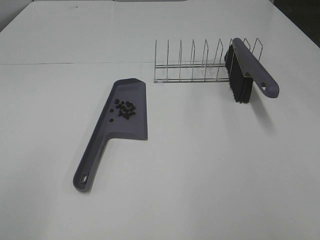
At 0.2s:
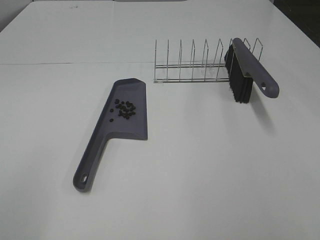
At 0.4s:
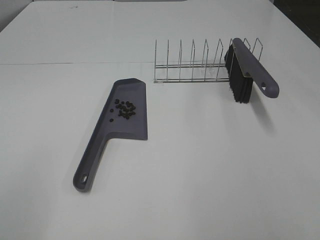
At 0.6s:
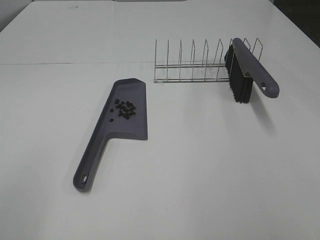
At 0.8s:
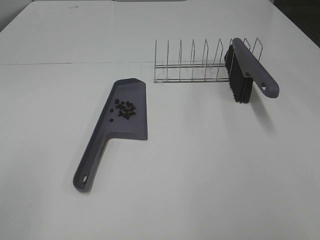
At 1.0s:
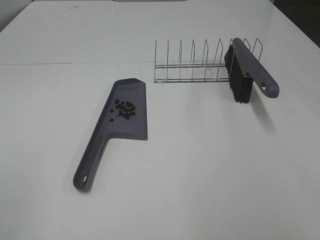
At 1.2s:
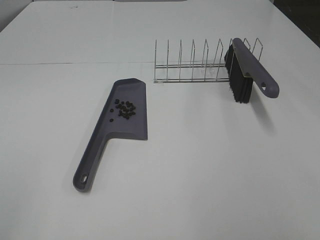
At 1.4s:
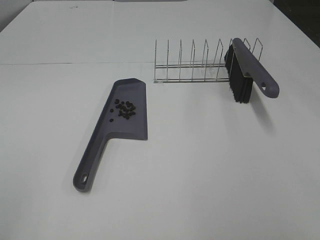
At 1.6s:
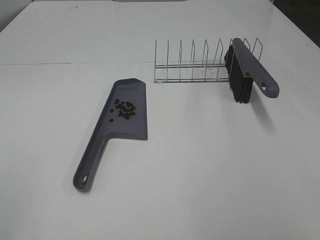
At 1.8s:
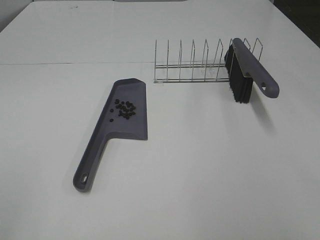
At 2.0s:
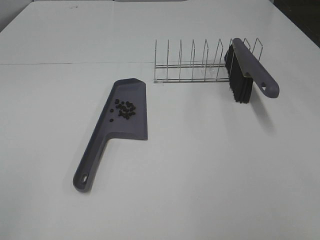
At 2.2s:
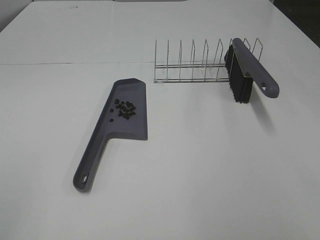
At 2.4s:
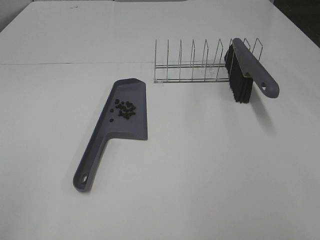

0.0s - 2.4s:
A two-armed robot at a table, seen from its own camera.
Task of the whole recording: Sweep Coffee Bean.
1.2s - 2.4s: The two grippers keep their place.

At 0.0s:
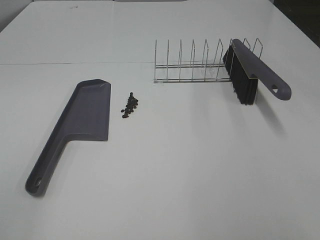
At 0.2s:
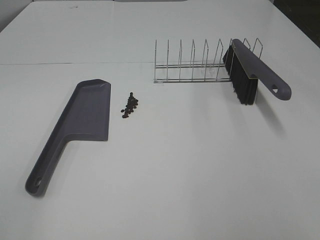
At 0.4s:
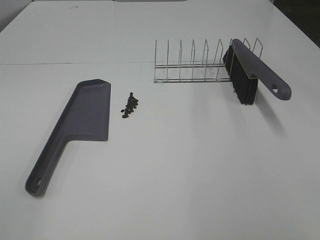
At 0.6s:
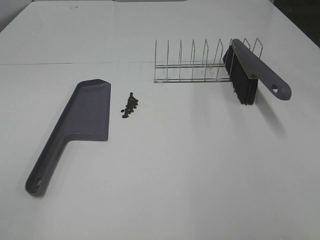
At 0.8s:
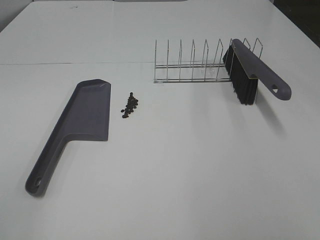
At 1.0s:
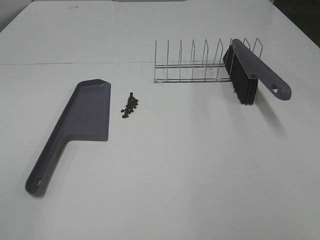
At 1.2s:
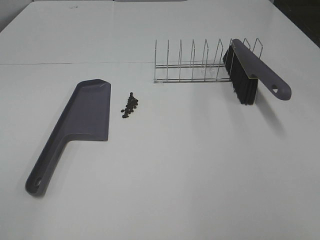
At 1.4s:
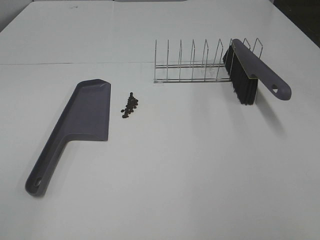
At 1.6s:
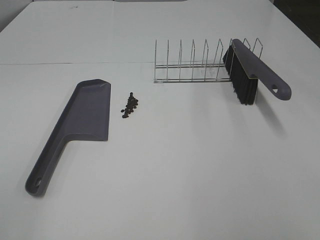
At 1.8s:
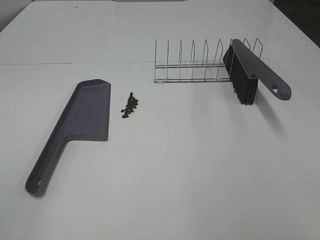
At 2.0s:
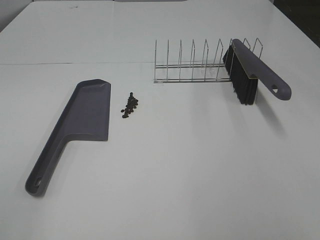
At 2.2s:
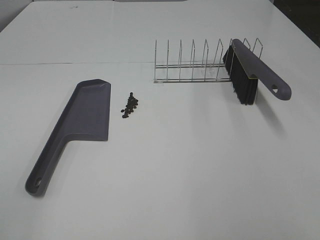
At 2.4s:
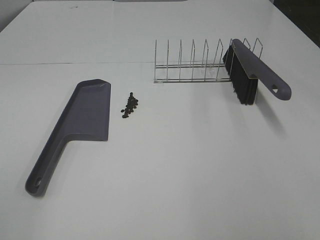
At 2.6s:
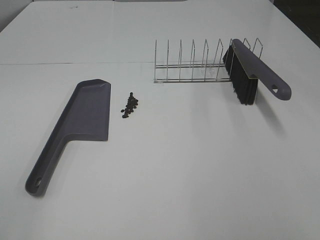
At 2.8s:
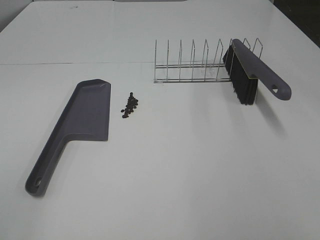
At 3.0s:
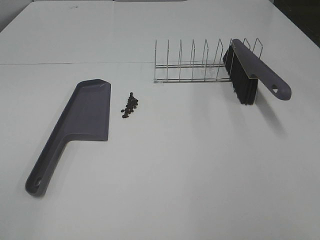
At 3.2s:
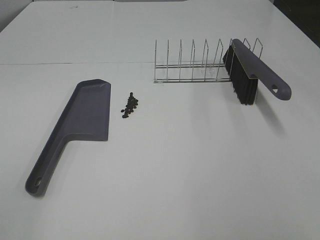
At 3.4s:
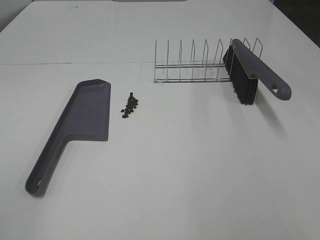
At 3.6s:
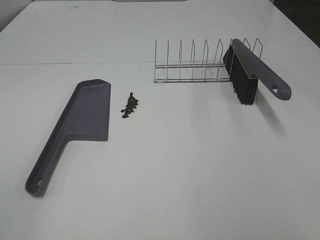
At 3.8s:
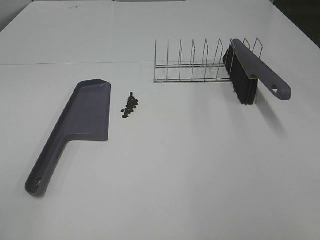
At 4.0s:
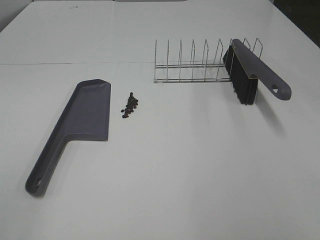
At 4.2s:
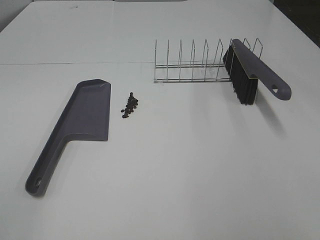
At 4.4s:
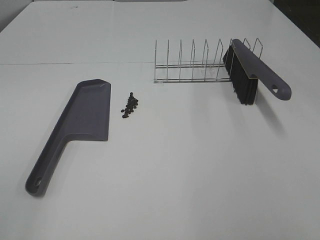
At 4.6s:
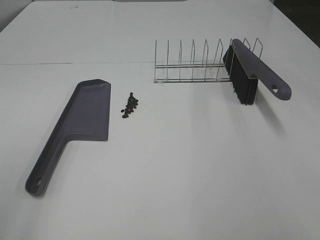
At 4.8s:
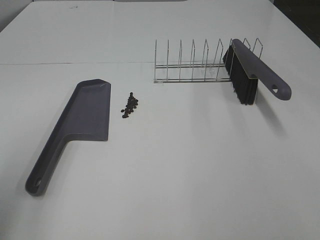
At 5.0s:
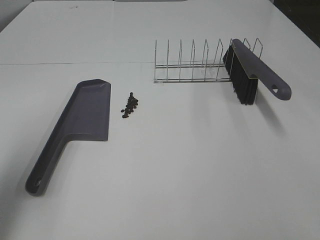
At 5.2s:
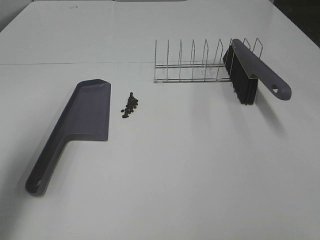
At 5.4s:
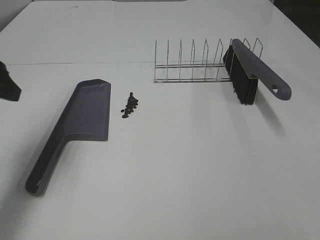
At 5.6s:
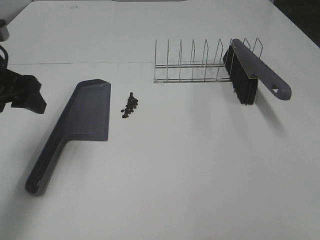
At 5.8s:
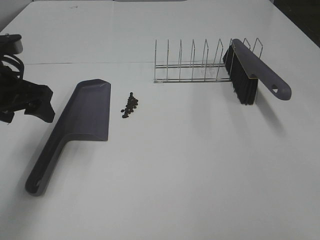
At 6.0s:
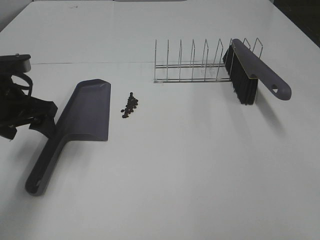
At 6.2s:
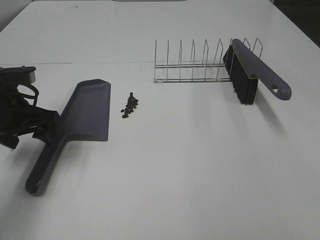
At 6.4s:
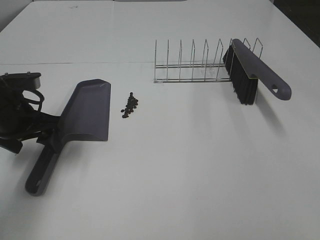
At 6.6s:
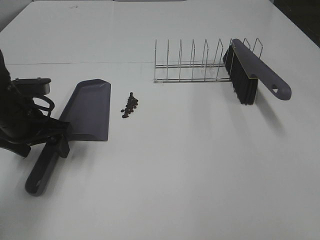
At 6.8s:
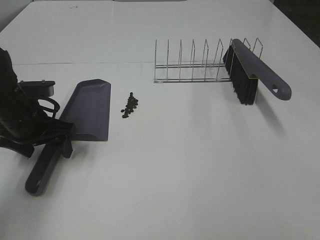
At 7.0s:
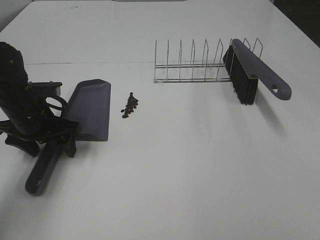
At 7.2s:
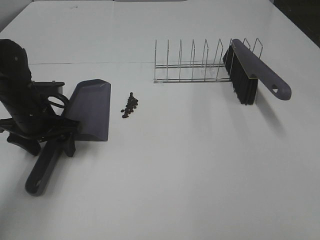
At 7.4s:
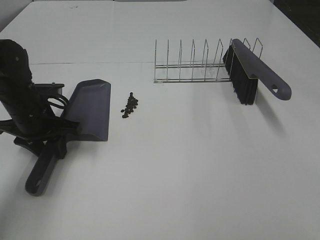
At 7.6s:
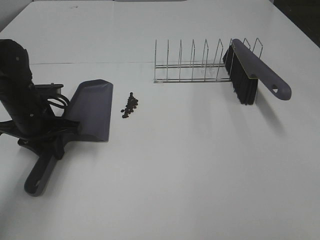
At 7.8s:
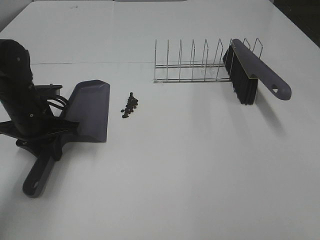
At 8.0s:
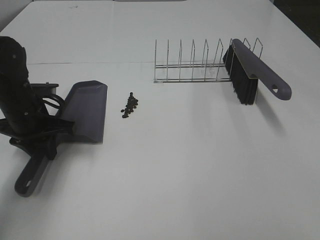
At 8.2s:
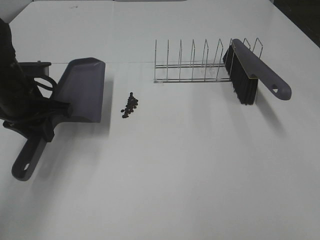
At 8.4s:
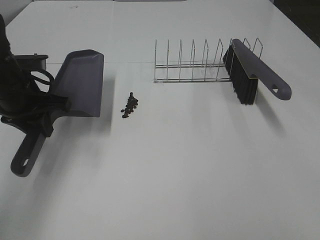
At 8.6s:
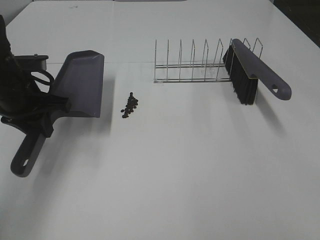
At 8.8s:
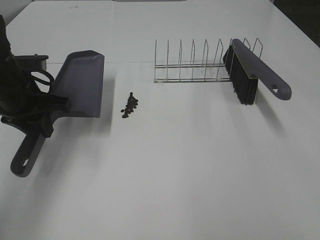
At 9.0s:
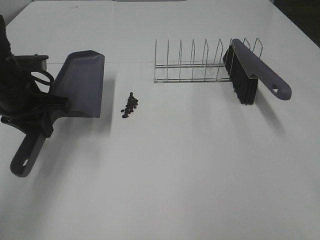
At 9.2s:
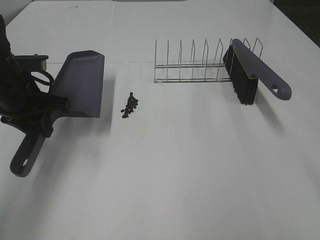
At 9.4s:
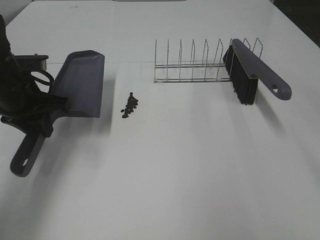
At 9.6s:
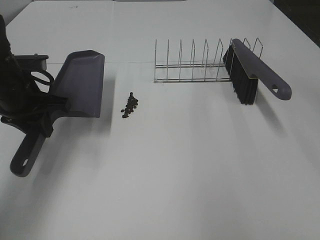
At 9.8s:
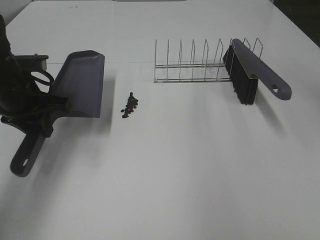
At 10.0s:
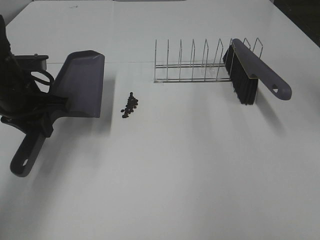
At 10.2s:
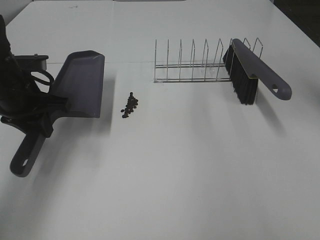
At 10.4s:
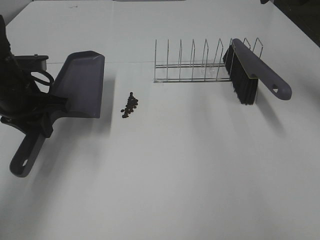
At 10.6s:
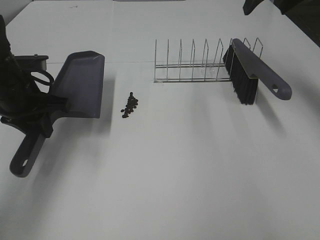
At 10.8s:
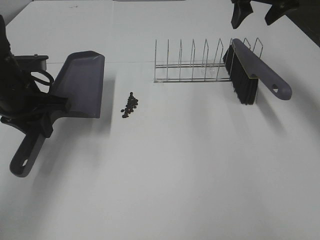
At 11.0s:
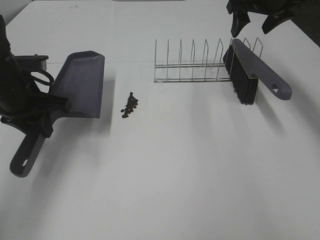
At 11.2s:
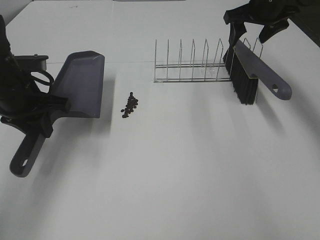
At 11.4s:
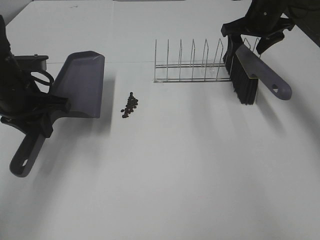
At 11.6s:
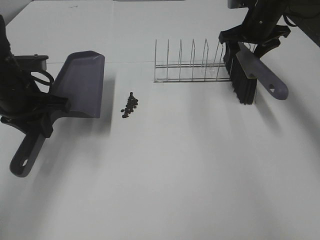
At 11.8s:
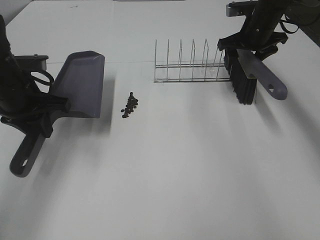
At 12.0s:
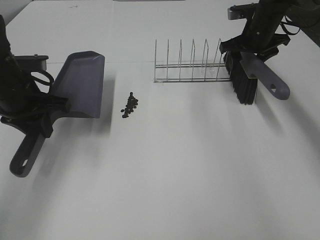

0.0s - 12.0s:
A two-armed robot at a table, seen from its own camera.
Task of the whole recording: Sweep Coffee Bean.
Step, 0.0s - 7.6s: Left hand: grab the dustpan.
0.0s - 4.4s: The two grippers keep their place.
4.4s - 6.0s: The left gripper is displaced forward and downward by about 35 cm.
6.0s - 7.6s: The left gripper moves downward, roughly 5 cm, and closes.
7.6s - 9.0s: The left gripper is displaced upward by about 5 cm.
9.0s - 10.4s: The right gripper heads forward, covering approximately 40 cm.
10.4s - 12.0s: The right gripper travels downward and forward by roughly 20 cm.

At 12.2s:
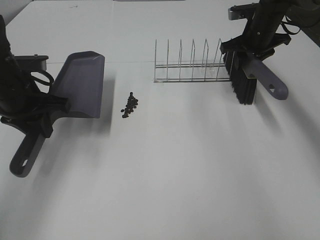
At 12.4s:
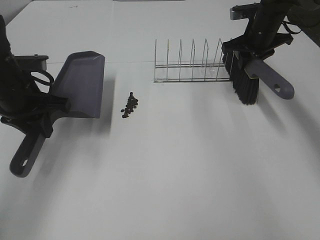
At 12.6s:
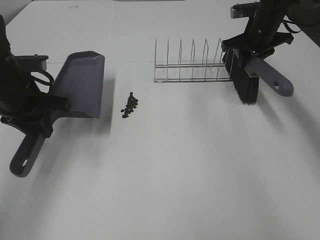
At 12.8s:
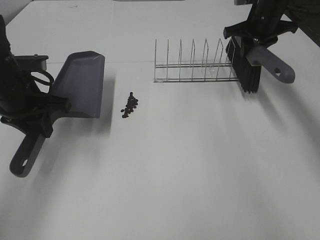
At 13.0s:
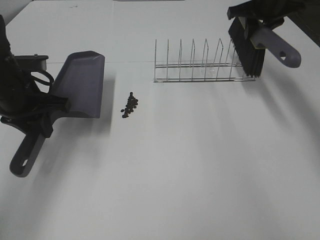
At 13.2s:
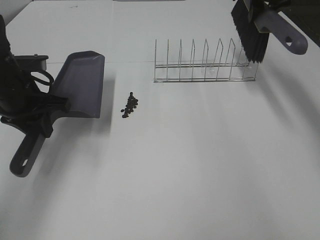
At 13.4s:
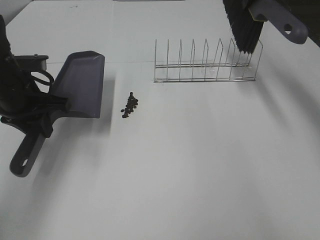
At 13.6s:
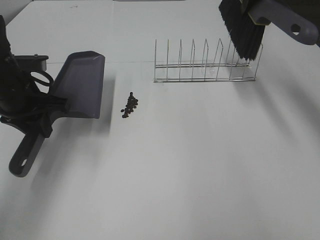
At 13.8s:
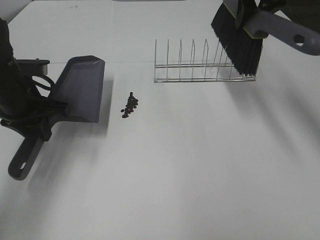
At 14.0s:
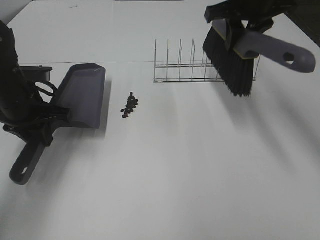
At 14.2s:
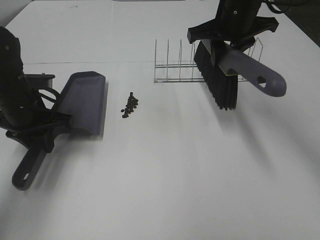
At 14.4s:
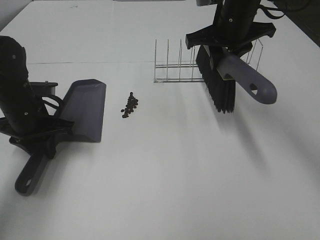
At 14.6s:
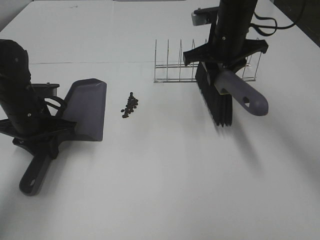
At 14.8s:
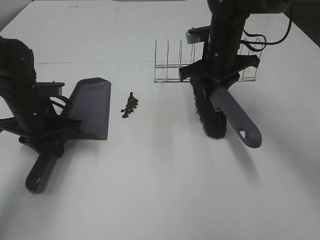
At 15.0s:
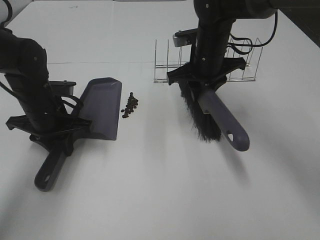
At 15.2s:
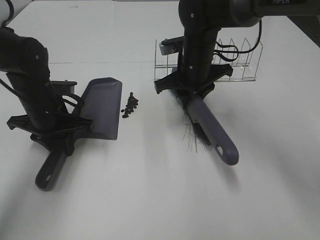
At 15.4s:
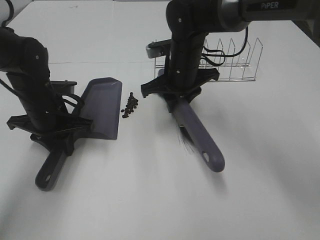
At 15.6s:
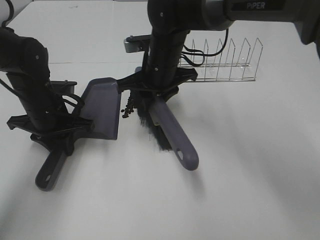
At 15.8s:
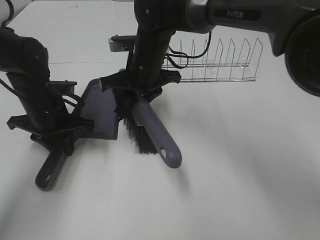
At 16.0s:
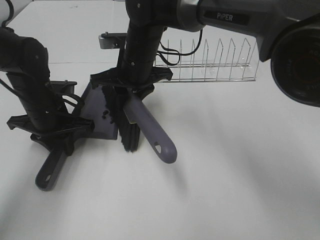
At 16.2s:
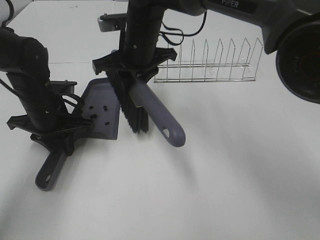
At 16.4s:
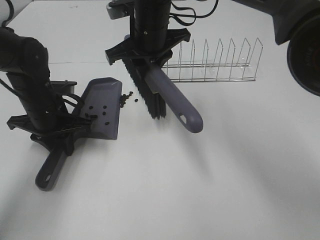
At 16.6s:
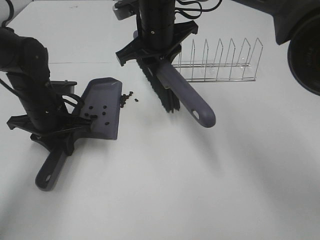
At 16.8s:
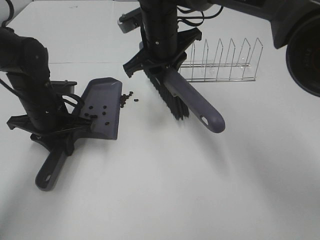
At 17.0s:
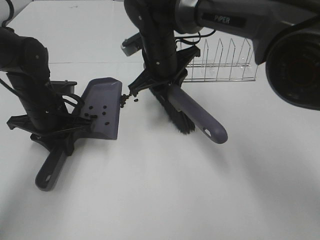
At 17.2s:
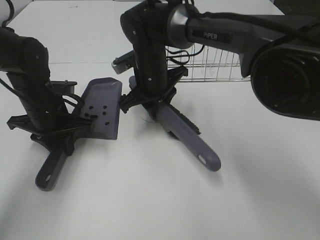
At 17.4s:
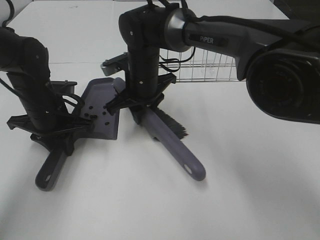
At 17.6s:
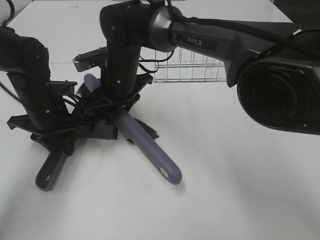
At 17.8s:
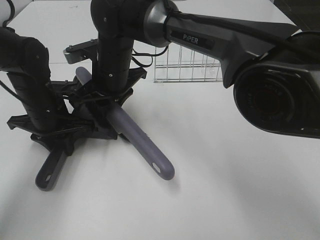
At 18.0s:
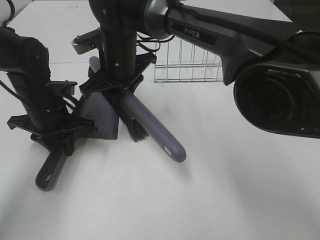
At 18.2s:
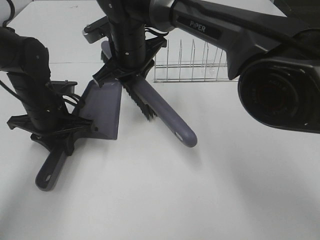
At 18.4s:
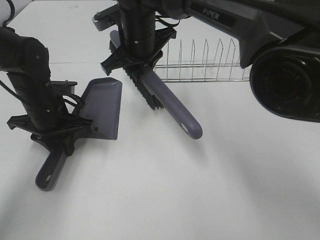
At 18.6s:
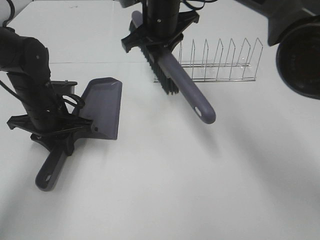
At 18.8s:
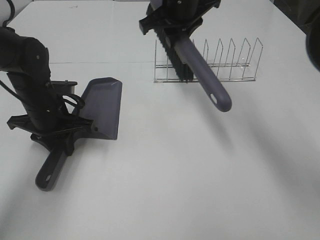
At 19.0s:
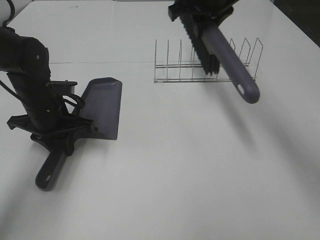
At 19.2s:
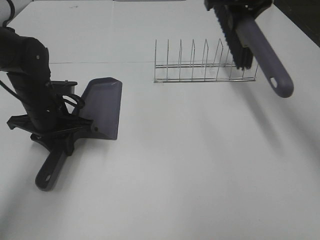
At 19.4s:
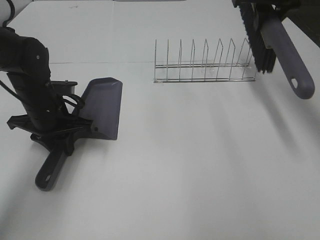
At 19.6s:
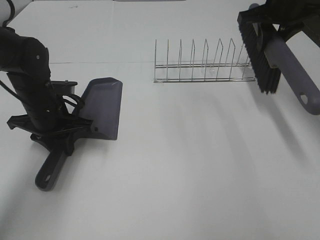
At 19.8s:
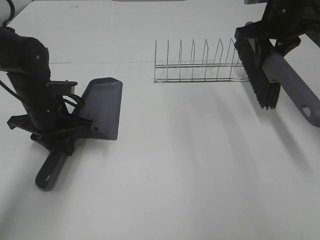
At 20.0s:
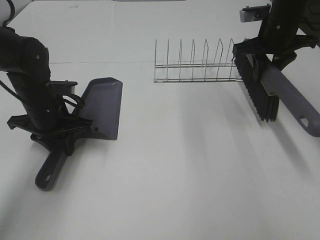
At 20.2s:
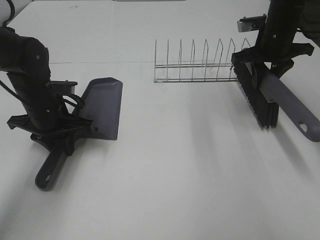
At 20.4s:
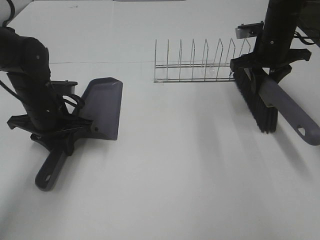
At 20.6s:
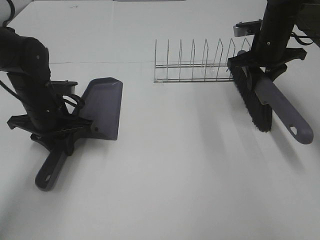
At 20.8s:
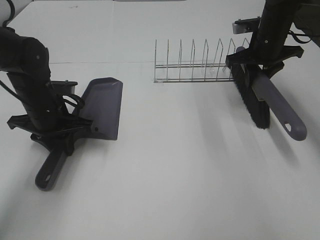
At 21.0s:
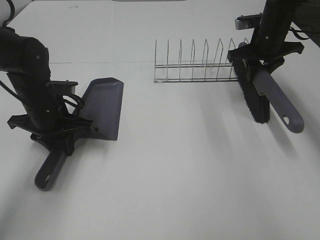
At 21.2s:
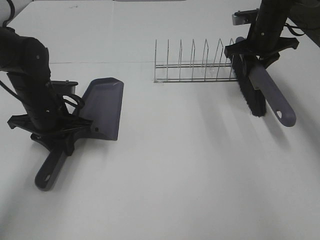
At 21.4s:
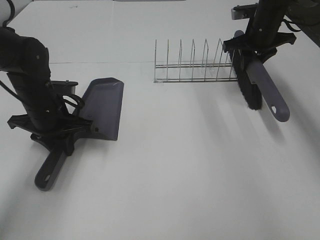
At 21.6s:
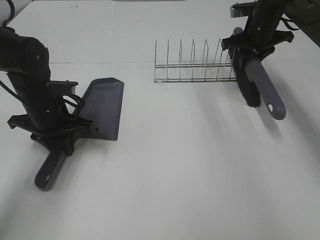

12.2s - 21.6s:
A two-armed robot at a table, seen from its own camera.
Task of the whole recording: Sweep Coffee Bean.
Step, 12.2s - 15.0s: Left hand: move the dustpan to the left side of the coffee beans.
Step, 12.4s - 18.0s: Right hand:sweep the coffee beans into the dustpan.
12.2s - 13.8s: The right gripper moves upward and backward, roughly 15 cm.
13.8s - 15.4s: The right gripper is displaced downward and to the left by some 20 cm. The left gripper moves downward, some 5 cm.
17.0s - 18.4s: The right gripper is displaced upward by roughly 5 cm.
18.4s - 20.0s: The right gripper shifts approximately 25 cm to the right.
20.0s - 21.6s: The right gripper goes some 10 cm forward.
